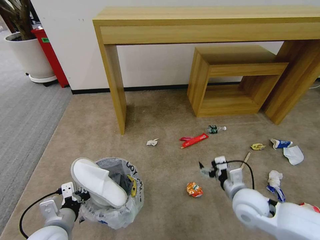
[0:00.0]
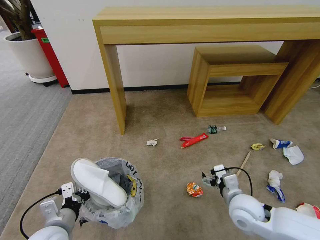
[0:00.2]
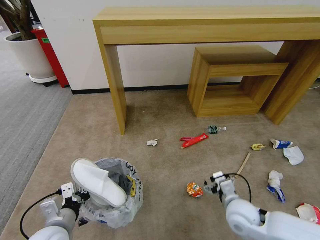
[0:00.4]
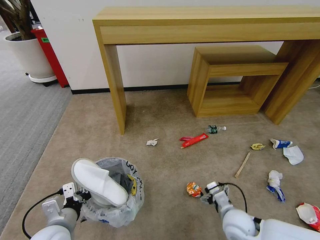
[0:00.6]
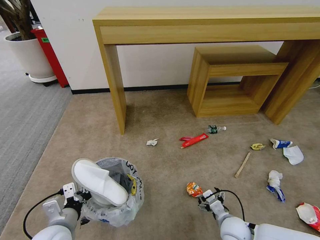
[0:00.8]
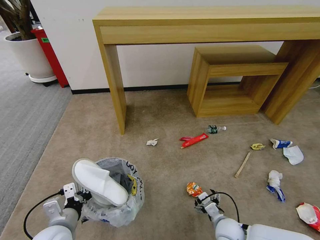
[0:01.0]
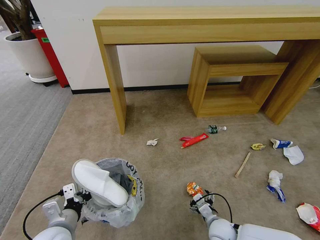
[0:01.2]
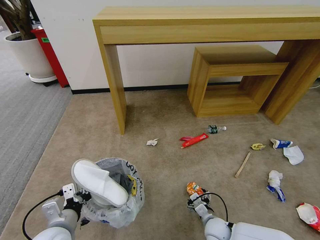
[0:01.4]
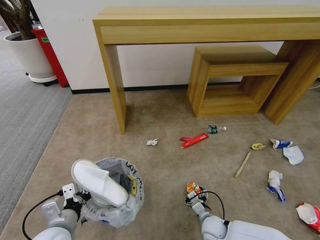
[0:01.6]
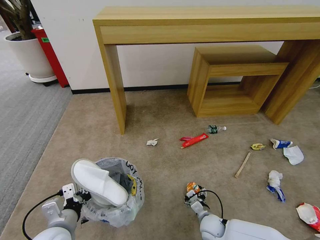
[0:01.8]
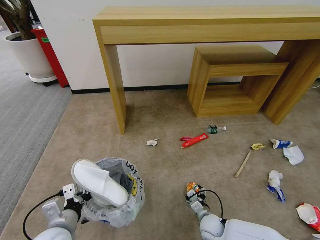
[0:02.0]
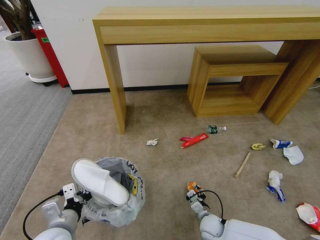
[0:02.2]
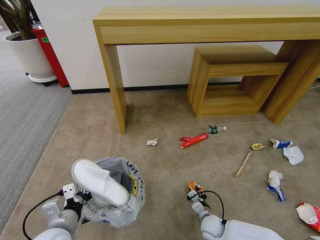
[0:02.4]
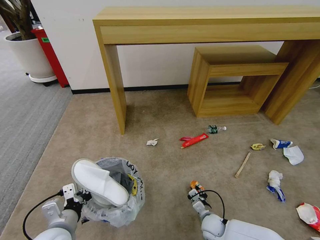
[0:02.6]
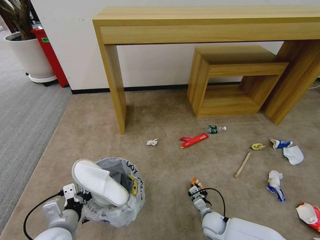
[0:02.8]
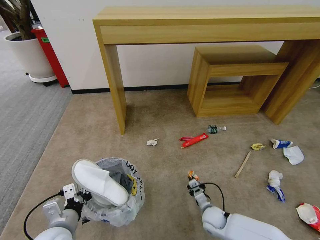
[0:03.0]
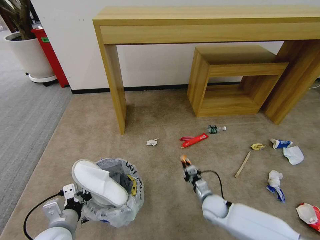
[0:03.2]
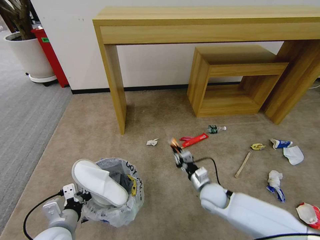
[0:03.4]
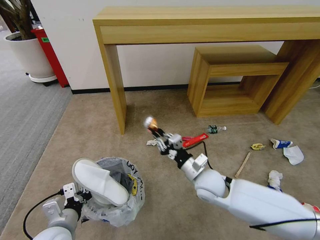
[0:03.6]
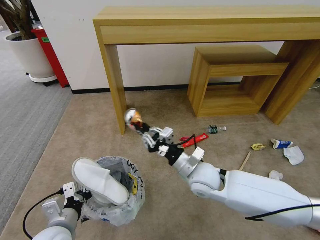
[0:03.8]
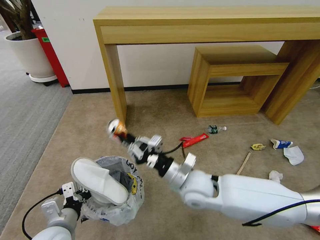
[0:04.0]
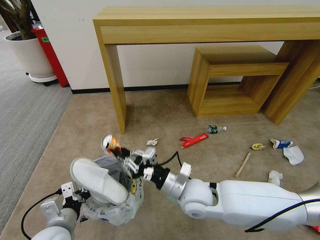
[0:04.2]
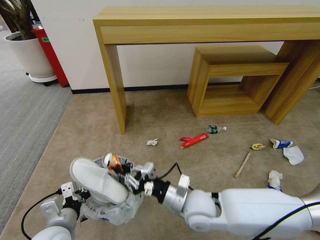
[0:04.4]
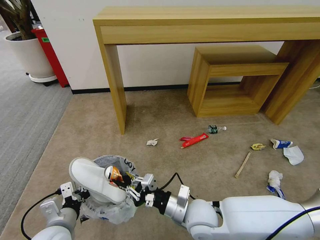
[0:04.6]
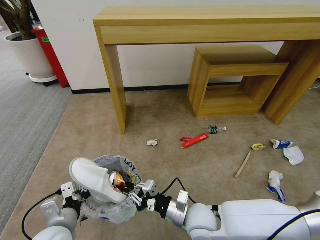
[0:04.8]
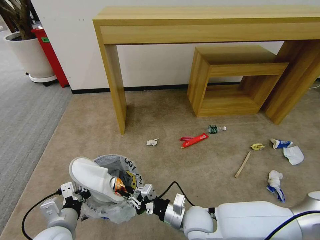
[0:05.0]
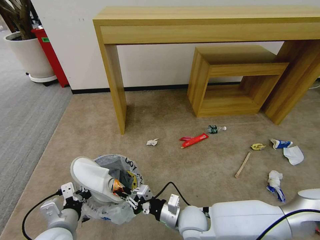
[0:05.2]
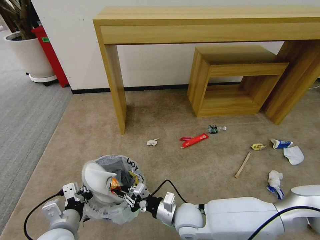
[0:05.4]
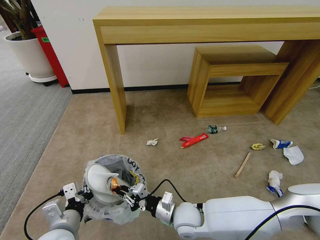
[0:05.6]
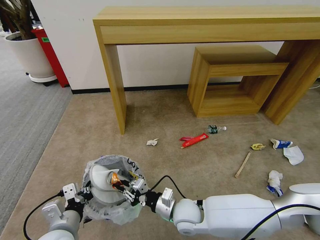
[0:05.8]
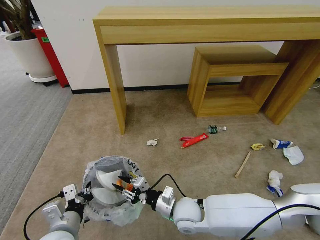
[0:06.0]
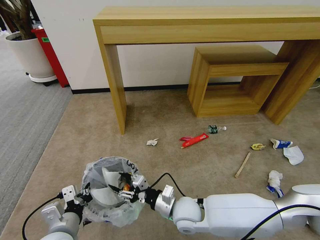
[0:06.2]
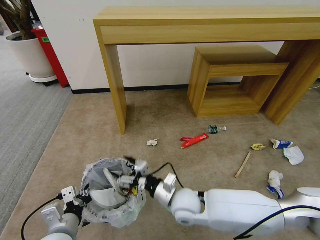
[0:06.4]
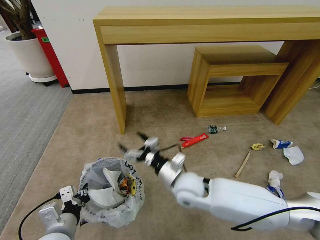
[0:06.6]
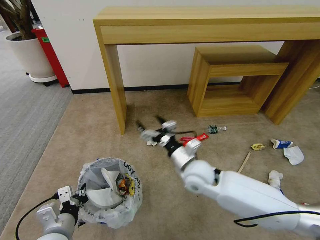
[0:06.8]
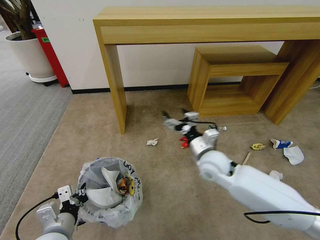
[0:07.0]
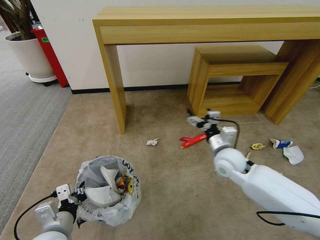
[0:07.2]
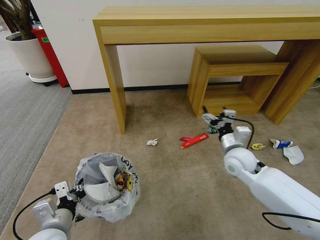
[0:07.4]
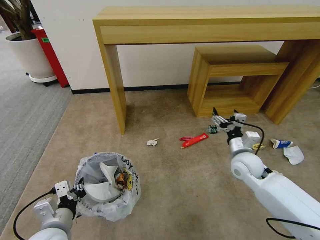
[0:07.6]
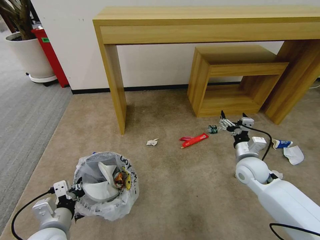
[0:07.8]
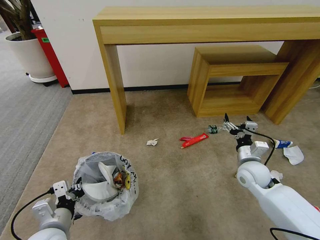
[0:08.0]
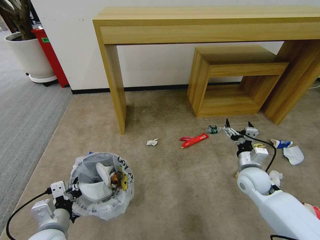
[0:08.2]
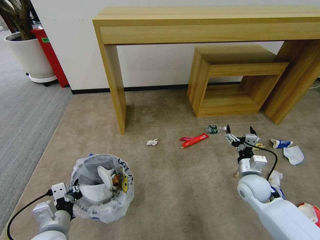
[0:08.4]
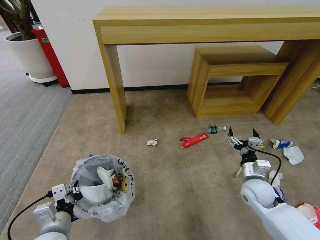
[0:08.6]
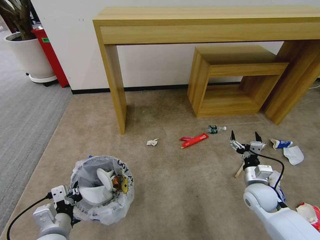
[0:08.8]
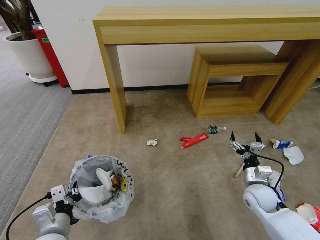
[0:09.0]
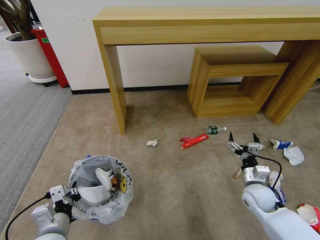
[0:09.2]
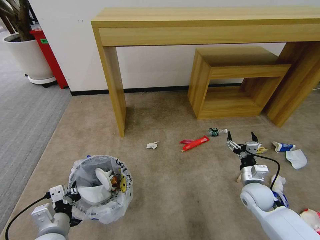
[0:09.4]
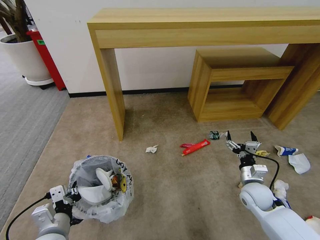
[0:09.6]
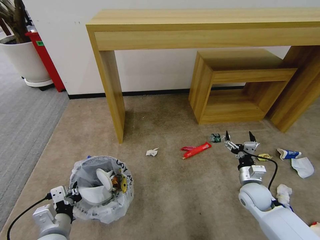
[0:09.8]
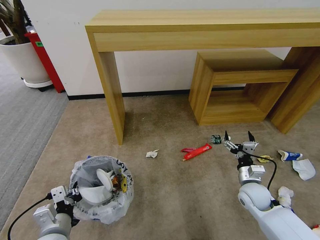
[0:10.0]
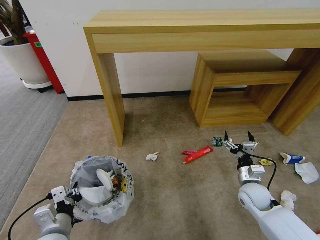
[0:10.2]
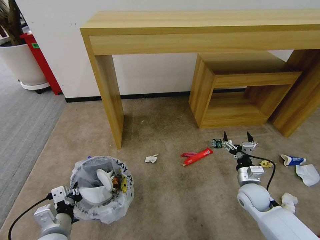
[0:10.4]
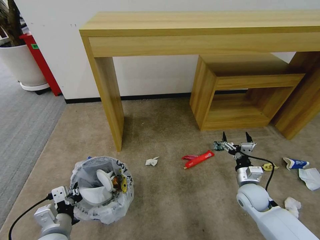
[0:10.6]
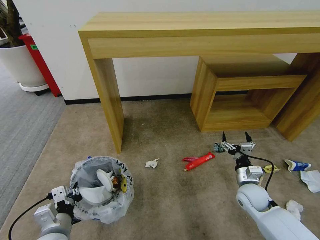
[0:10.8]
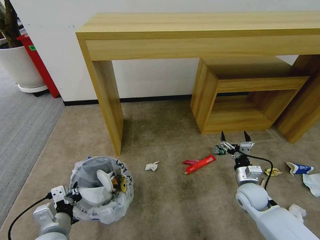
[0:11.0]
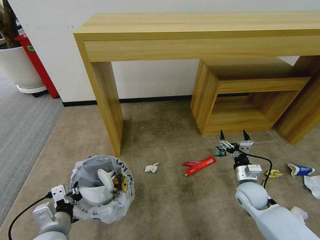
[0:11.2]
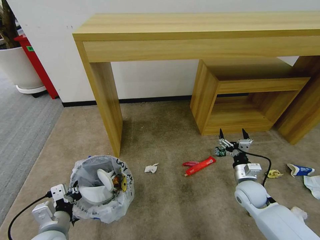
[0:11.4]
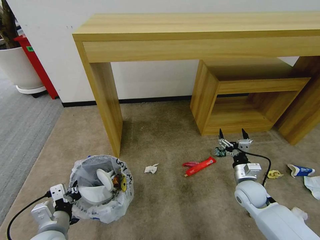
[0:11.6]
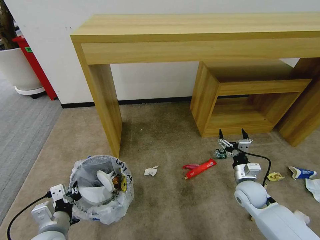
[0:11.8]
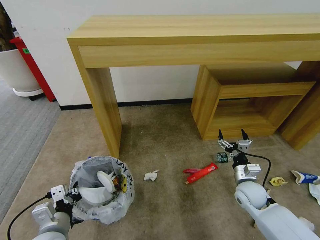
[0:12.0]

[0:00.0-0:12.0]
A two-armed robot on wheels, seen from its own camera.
Task of the whole recording: Pick up the trash bin and place the garbage on the floor into it.
0:00.0 to 0:01.6: The right gripper is displaced downward by some 20 cm.
0:01.6 to 0:03.0: The right gripper closes.
0:03.0 to 0:04.4: The right gripper is displaced upward and to the left by about 25 cm.
0:04.4 to 0:06.0: The right gripper goes approximately 10 cm downward.
0:06.0 to 0:07.6: The right gripper goes roughly 25 cm to the right, forward and upward, and opens up.
0:07.6 to 0:09.0: The right gripper shifts some 15 cm downward, backward and to the right.

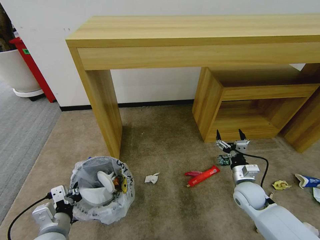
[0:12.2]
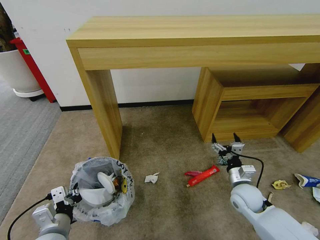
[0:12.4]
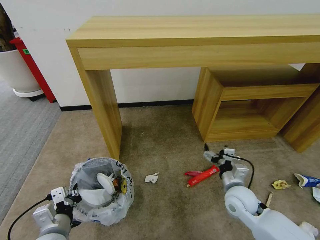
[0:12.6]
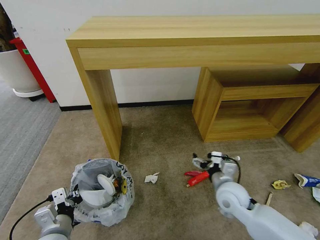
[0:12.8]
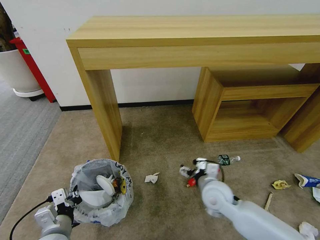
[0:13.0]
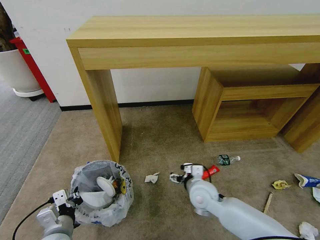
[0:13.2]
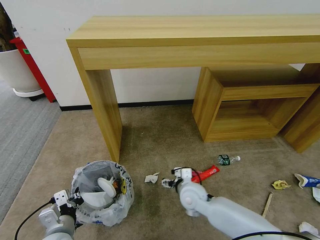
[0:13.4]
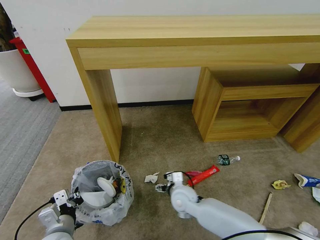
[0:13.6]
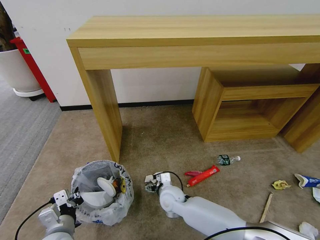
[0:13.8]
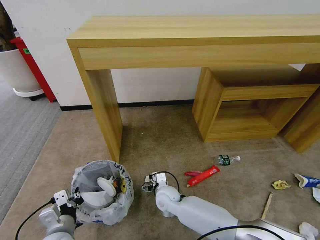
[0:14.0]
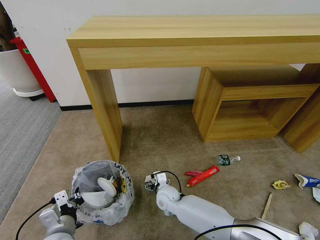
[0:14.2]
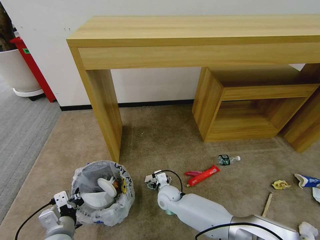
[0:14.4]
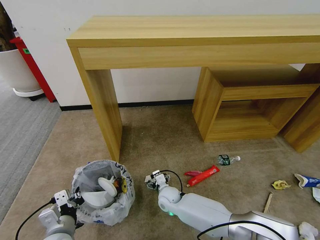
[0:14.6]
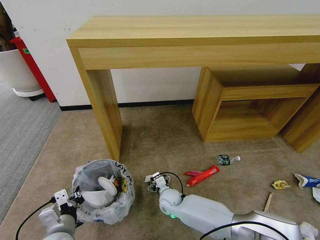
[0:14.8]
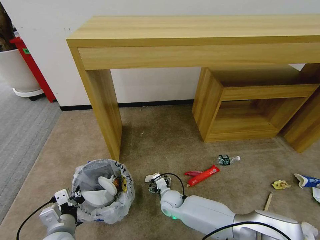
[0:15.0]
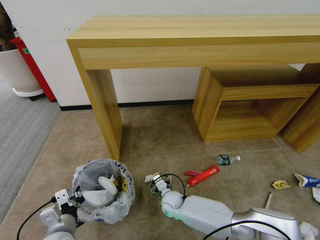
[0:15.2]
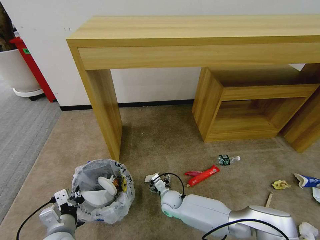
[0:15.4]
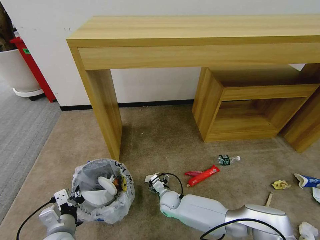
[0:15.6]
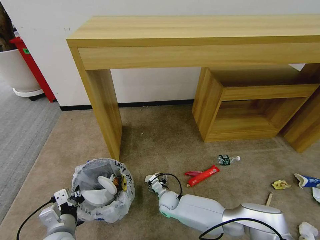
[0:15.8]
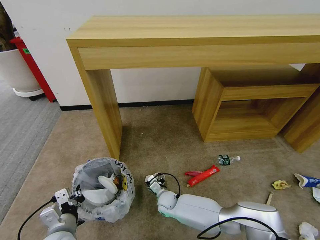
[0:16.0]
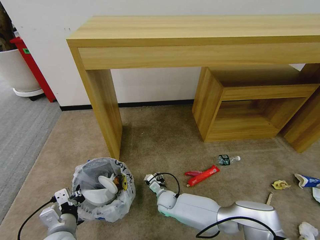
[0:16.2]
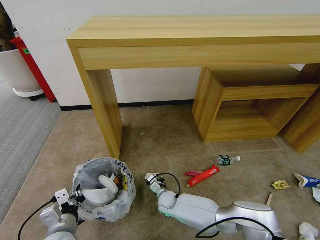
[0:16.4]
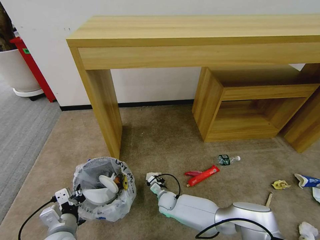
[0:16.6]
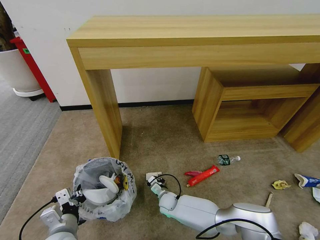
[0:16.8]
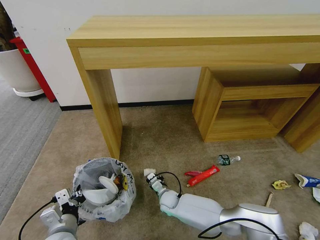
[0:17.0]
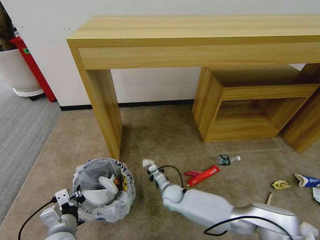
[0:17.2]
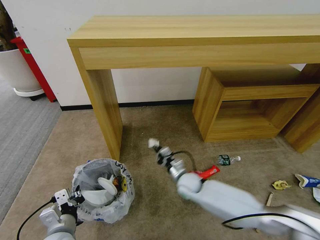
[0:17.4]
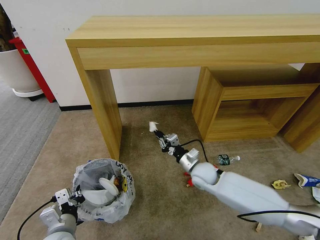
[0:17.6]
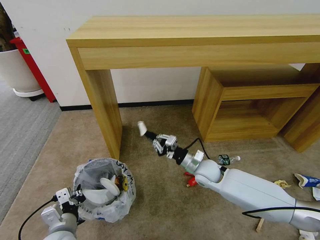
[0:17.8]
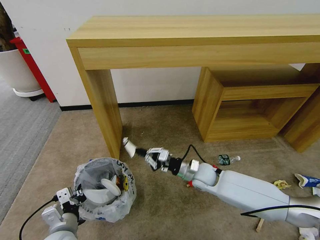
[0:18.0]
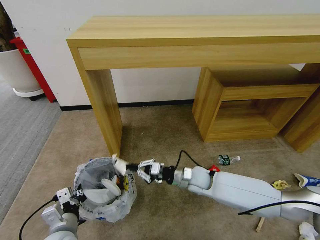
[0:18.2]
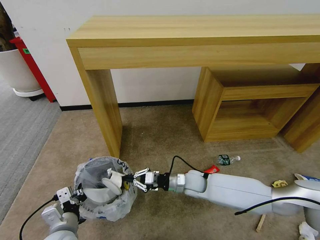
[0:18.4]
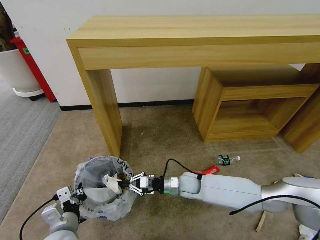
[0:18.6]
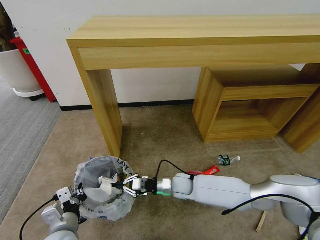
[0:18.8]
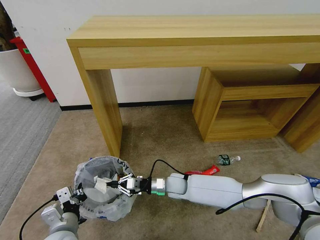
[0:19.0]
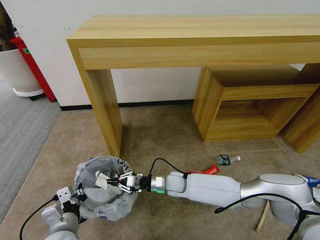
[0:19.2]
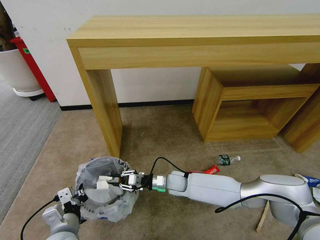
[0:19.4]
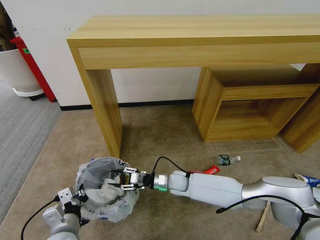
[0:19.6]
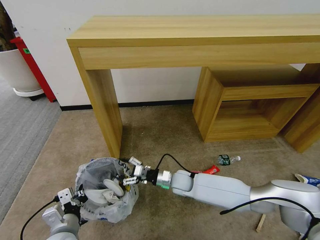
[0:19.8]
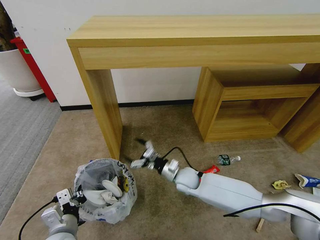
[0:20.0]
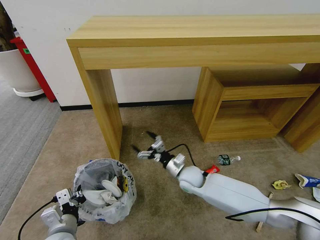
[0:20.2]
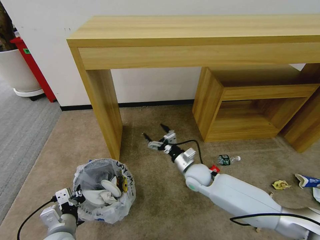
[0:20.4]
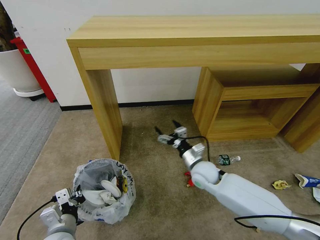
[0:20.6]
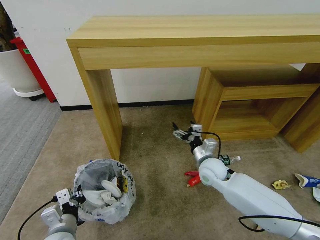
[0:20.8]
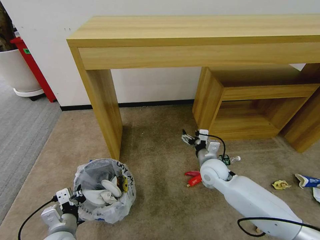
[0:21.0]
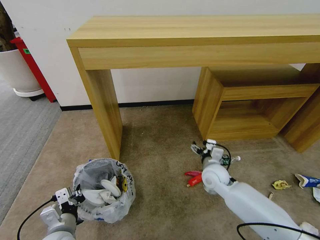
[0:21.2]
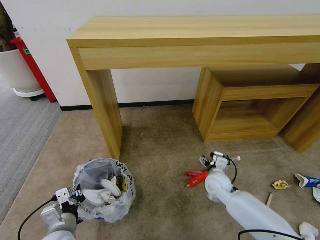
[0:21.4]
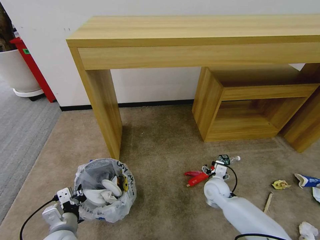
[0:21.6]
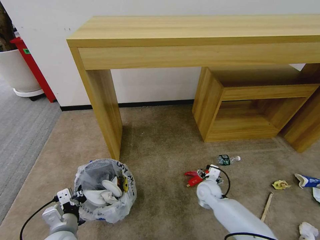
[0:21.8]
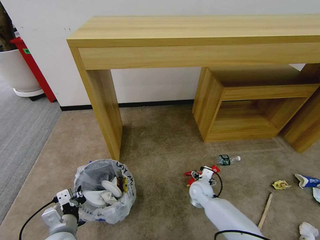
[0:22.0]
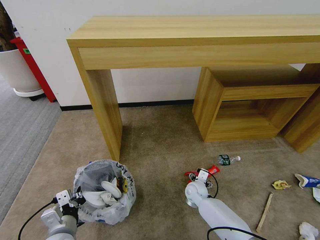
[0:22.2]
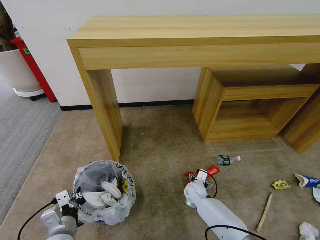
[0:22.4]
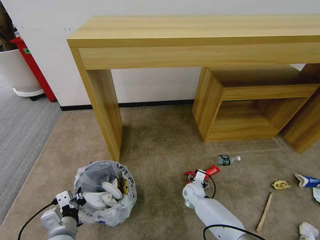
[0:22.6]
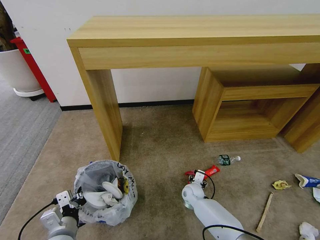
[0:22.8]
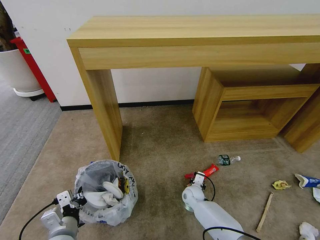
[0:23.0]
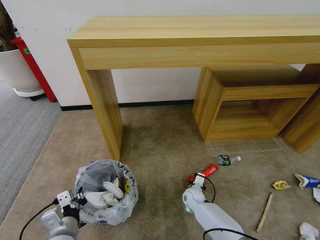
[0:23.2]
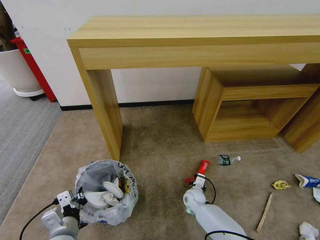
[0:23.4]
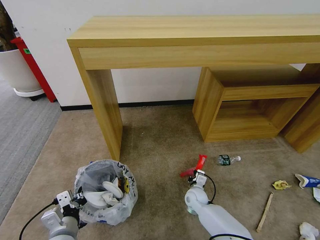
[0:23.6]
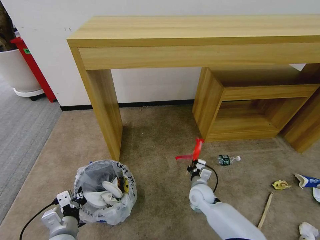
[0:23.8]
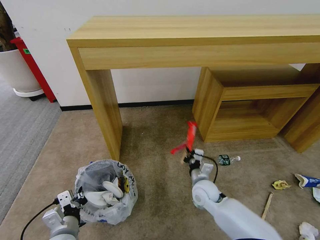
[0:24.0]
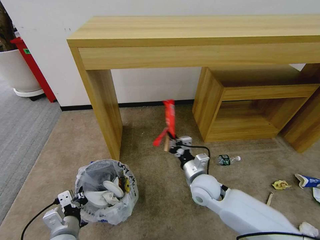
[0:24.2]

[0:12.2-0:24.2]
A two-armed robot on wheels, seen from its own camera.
Task of the whole recording: Pick up the trash bin and place the garbage on the floor into it.
0:12.2 to 0:13.8: The right gripper goes approximately 25 cm to the left.
0:13.8 to 0:15.2: The right gripper moves downward, about 10 cm.
0:15.2 to 0:16.6: The right gripper closes up.
0:16.6 to 0:18.2: The right gripper moves upward and to the right, some 20 cm.
0:18.2 to 0:19.8: The right gripper travels to the left and downward by approximately 10 cm, and opens.
0:19.8 to 0:21.2: The right gripper moves to the right and upward, roughly 15 cm.
0:21.2 to 0:22.6: The right gripper travels downward by about 15 cm.
0:22.6 to 0:24.2: The right gripper shifts roughly 20 cm upward, and closes its fingers.
